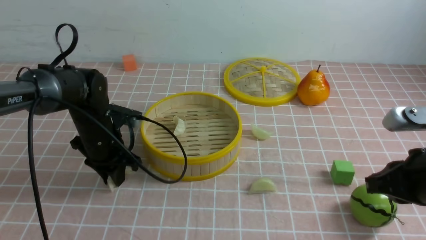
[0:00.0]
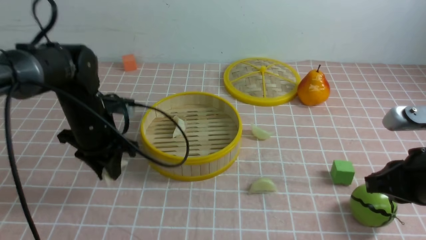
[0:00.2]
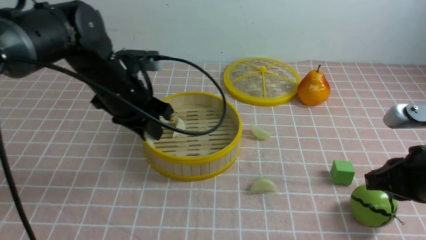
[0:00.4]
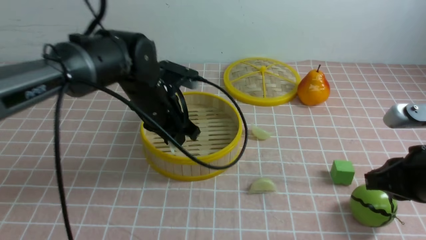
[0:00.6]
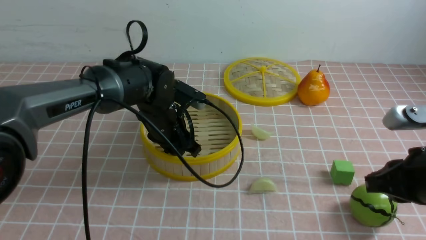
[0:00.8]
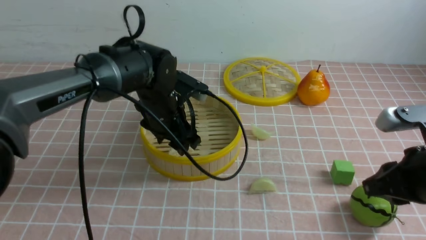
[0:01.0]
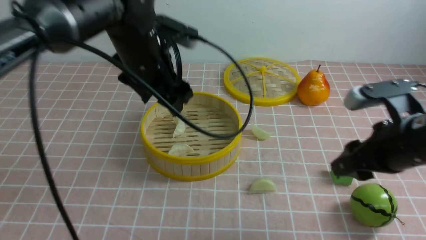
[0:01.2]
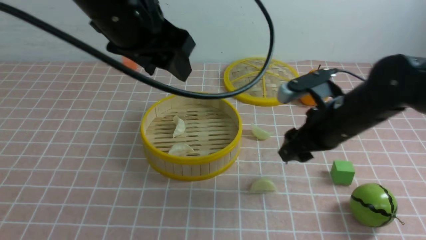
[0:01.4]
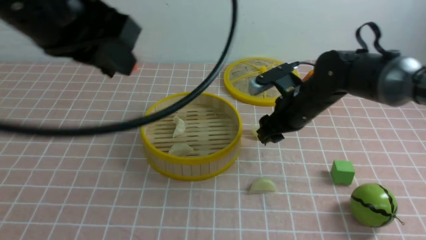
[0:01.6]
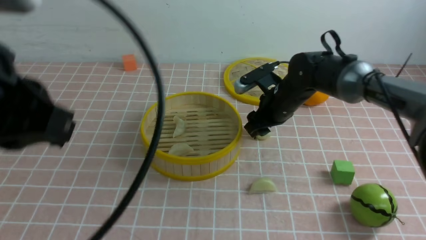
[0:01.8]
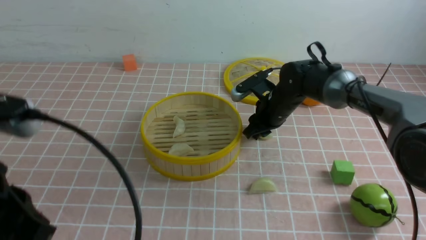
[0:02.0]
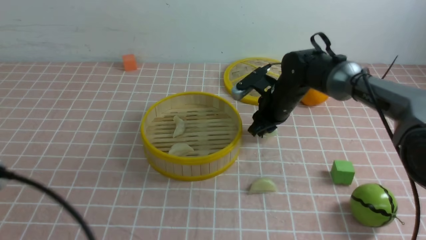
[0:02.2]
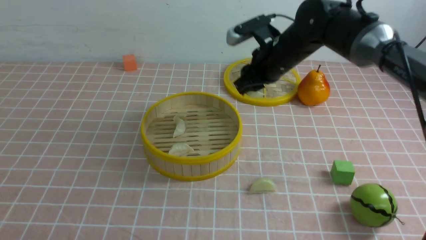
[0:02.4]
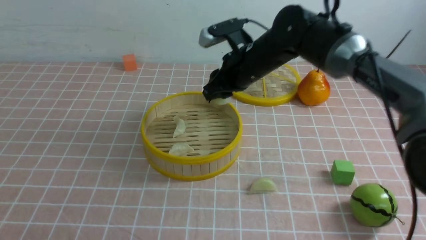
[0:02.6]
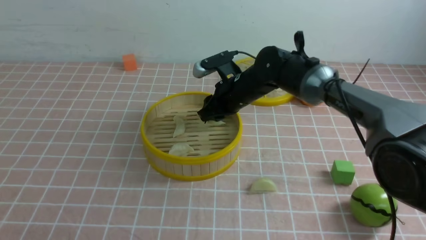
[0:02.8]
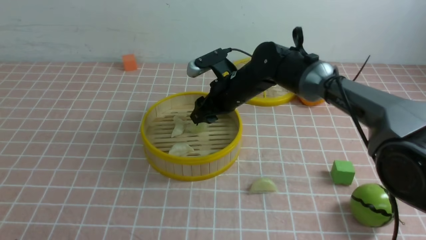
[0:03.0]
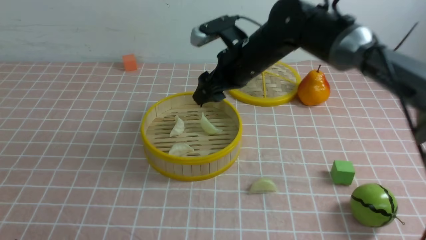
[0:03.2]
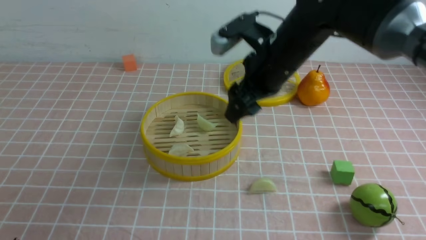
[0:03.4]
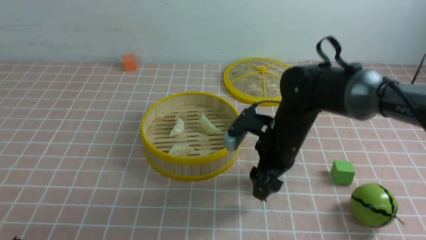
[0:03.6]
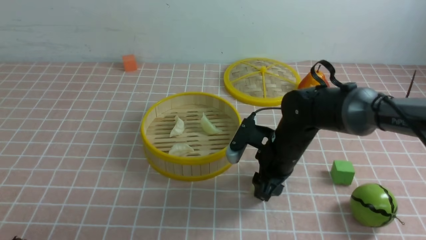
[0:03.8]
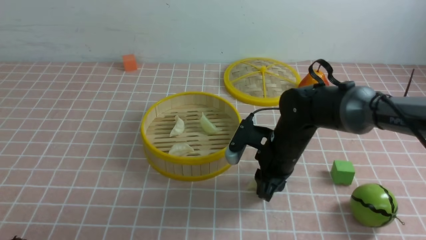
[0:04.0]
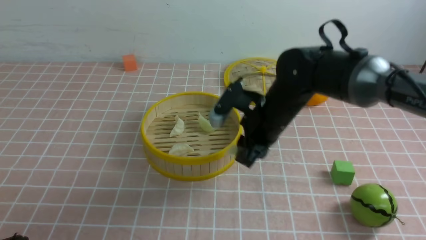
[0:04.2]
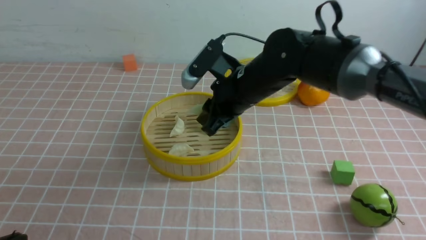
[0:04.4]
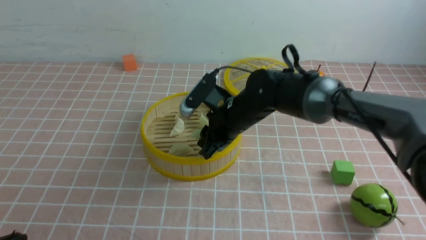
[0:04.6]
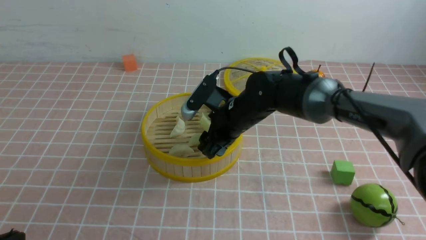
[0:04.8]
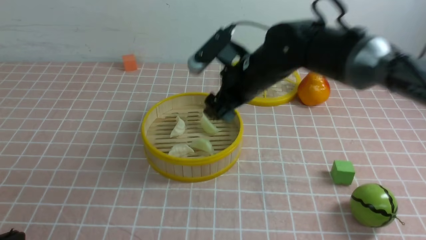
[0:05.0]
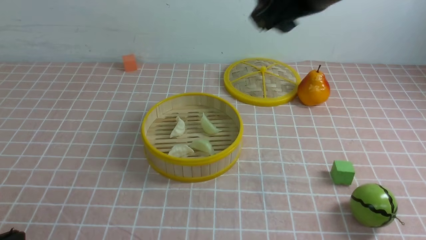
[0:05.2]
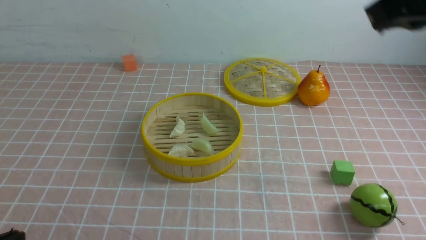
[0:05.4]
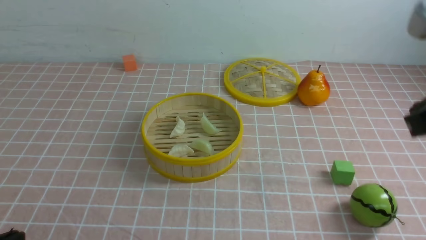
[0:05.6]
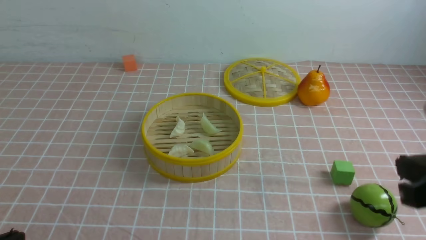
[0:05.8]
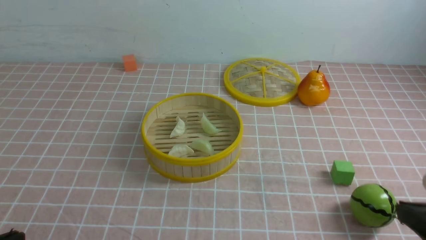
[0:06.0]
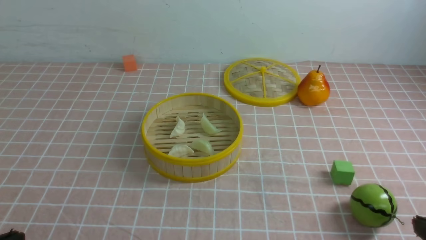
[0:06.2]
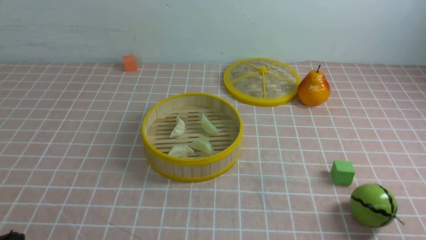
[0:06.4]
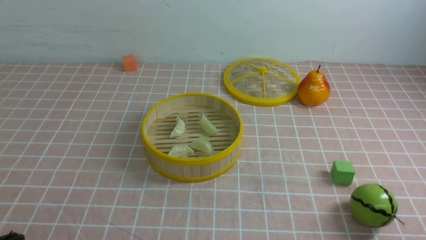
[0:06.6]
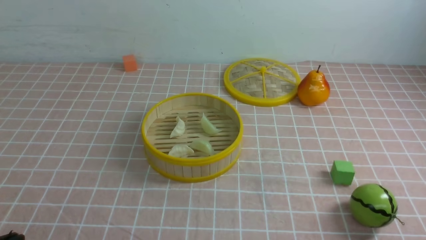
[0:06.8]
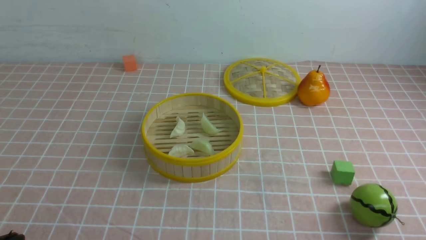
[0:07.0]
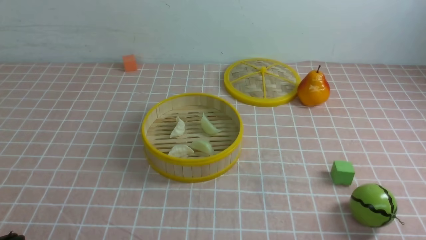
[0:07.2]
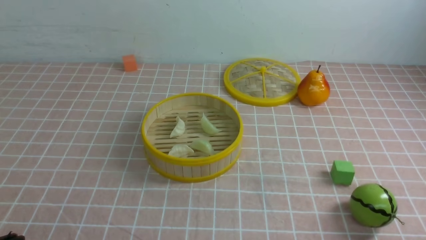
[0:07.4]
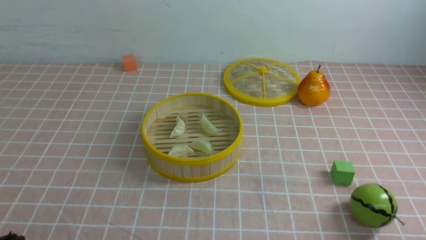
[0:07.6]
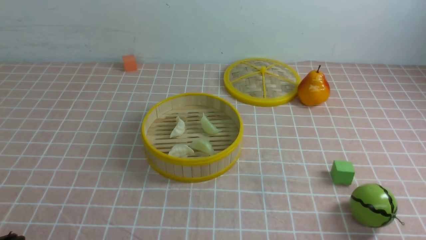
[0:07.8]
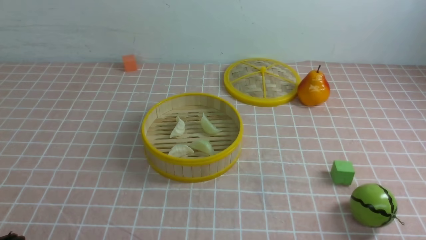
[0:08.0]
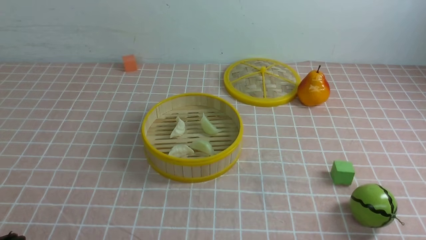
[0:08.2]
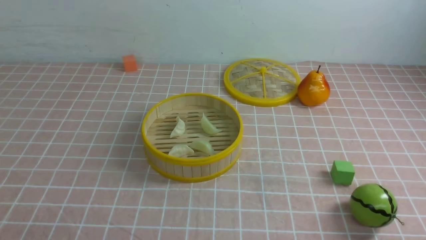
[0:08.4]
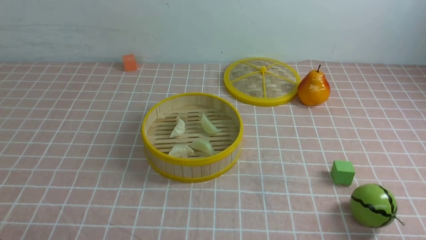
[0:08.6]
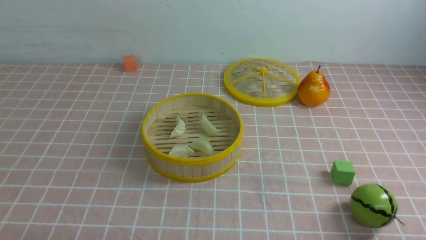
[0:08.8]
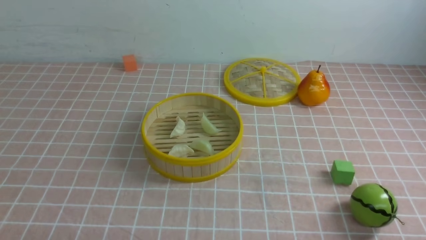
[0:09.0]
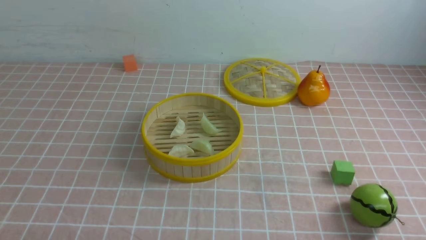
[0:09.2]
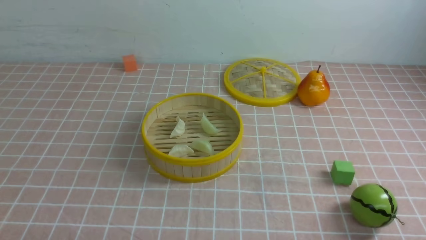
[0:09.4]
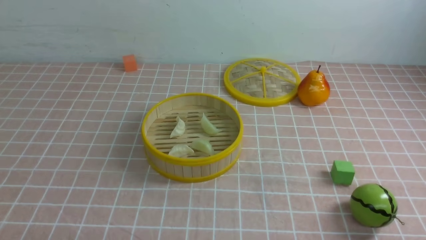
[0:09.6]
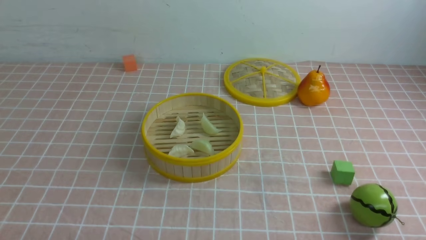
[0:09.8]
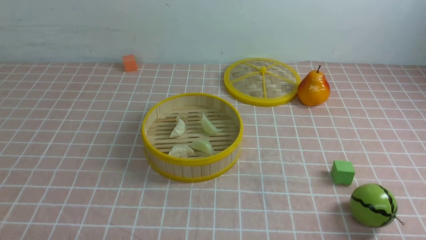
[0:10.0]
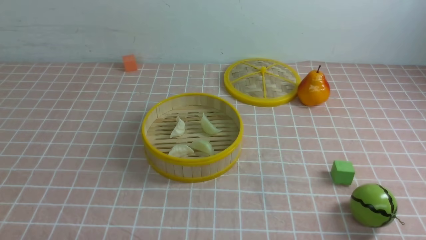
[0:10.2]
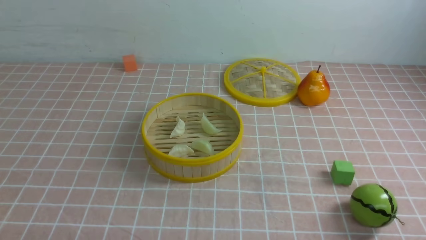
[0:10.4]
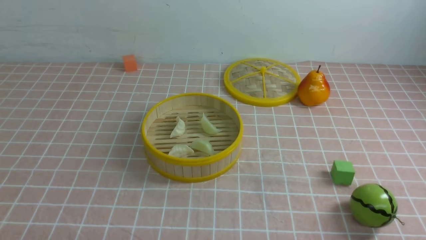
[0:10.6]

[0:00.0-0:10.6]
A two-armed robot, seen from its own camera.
Task of the whole recording: put the dumplings into the steamer on the table with the pink tablecloth.
Step, 0.4 to 1.2 s: use the left arm to put the dumpling into the steamer.
Step, 1.4 to 2.2 s: use the right arm to grab a dumpling.
Step, 2.4 to 3.2 s: use the right arm to put the dumpling into the steamer.
Step, 3.4 to 4.0 s: use the right arm to grab a dumpling.
Step, 4.2 to 5.0 s: use the right arm to put the dumpling into the steamer.
0.0 to 1.6 s: The right gripper travels forward and to the left by approximately 25 cm, and opens up. Meanwhile the left gripper heads upward and backward, covering roughly 30 cm, and opens and closes again.
1.6 to 3.0 s: The left gripper shifts about 25 cm downward, backward and to the left, and closes its fingers. Meanwhile the right gripper is displaced to the left by approximately 10 cm, and closes, then opens again.
3.0 to 4.6 s: The right gripper goes up and down, about 10 cm each way, reversing 2 times.
4.6 to 6.0 s: The right gripper travels backward and to the right by some 35 cm, and closes its fingers.
6.0 to 7.6 s: The right gripper heads downward and backward, covering some 10 cm.
9.0 to 10.6 s: Neither gripper changes place.

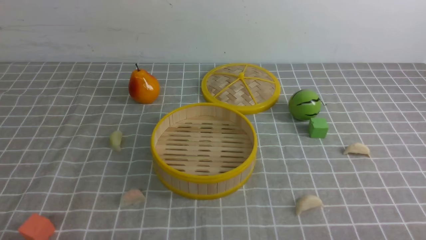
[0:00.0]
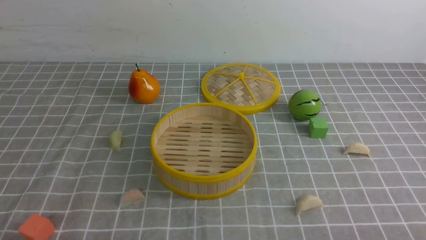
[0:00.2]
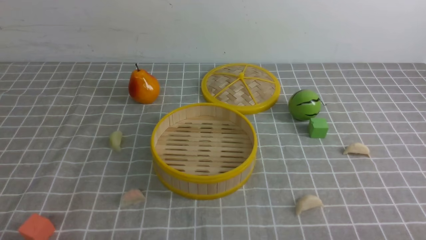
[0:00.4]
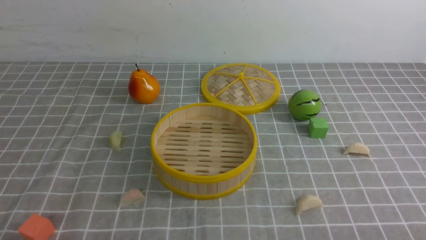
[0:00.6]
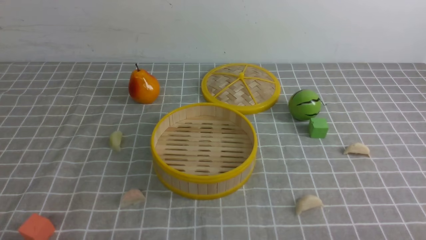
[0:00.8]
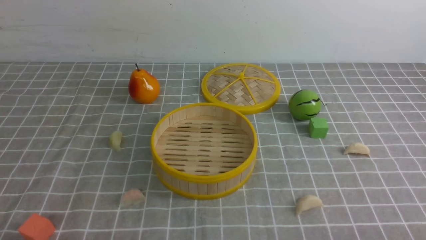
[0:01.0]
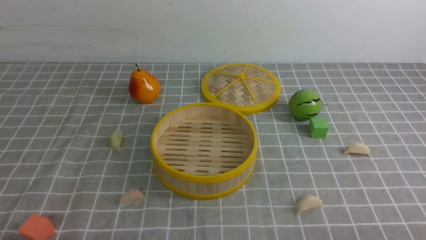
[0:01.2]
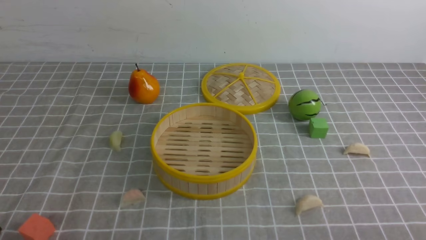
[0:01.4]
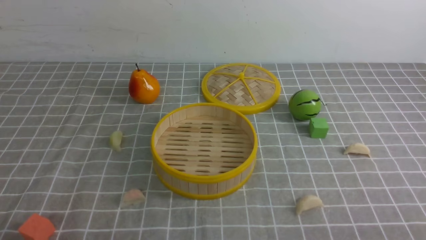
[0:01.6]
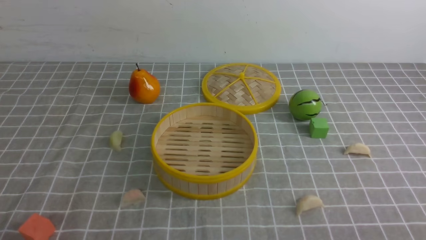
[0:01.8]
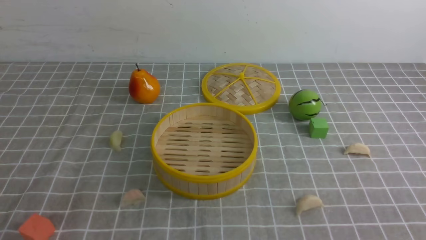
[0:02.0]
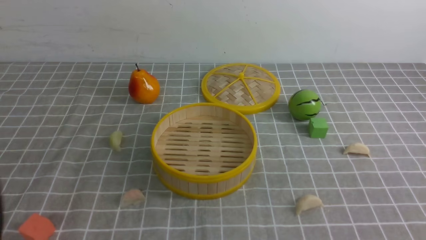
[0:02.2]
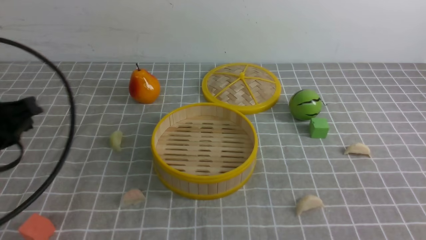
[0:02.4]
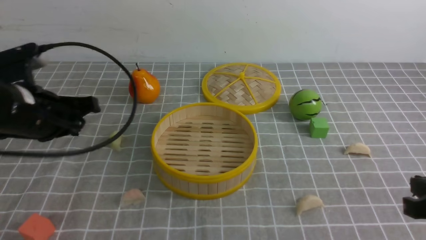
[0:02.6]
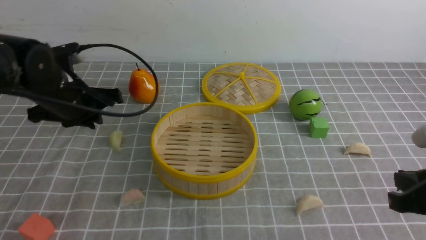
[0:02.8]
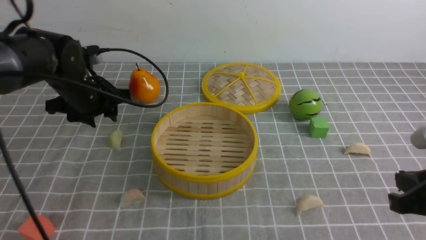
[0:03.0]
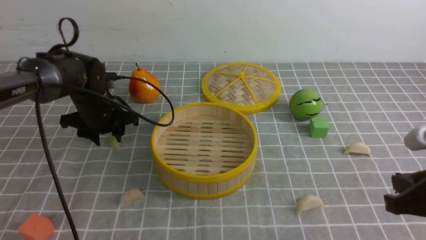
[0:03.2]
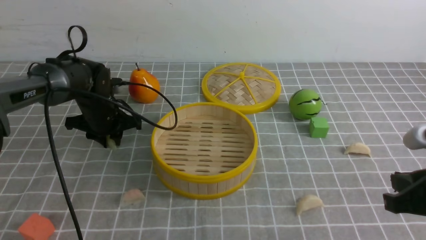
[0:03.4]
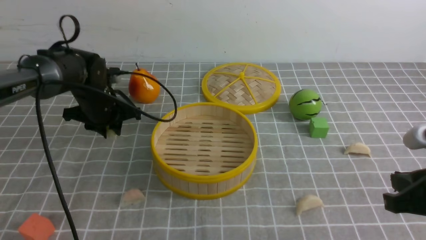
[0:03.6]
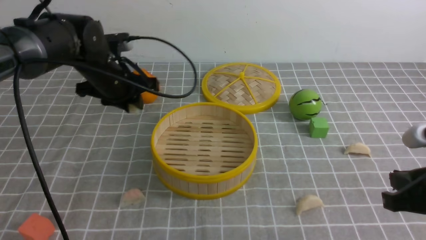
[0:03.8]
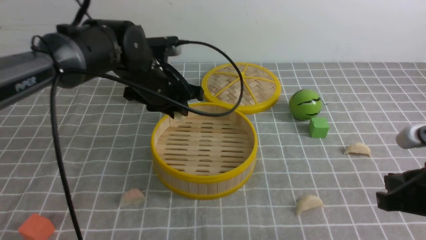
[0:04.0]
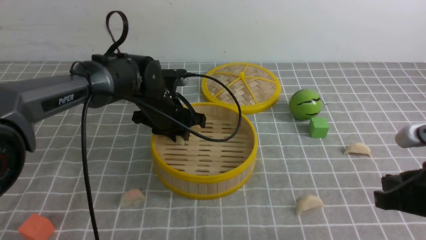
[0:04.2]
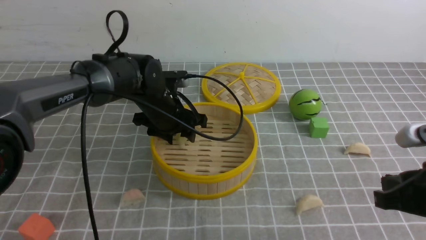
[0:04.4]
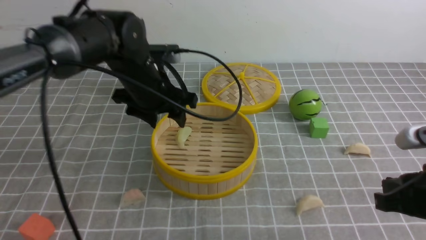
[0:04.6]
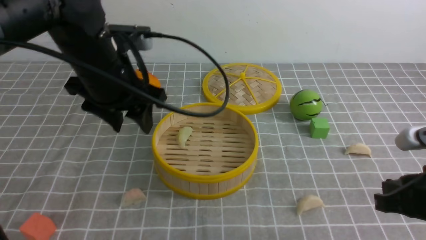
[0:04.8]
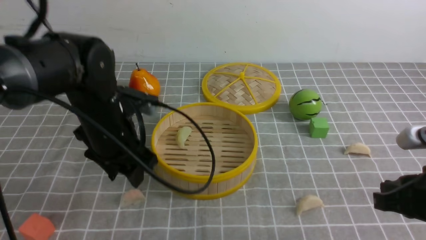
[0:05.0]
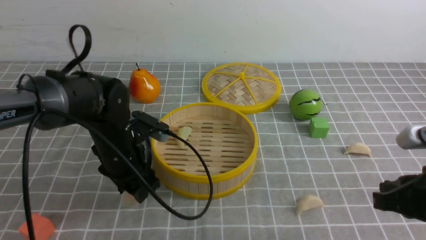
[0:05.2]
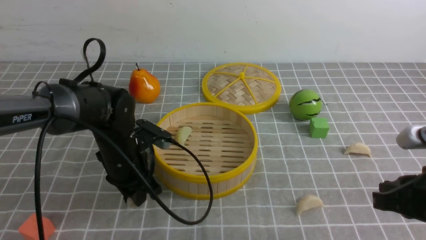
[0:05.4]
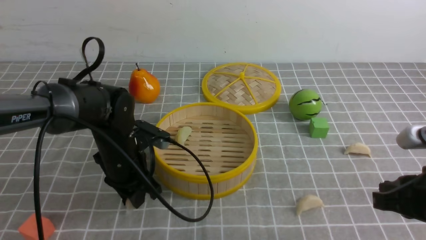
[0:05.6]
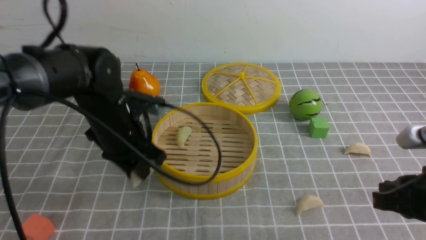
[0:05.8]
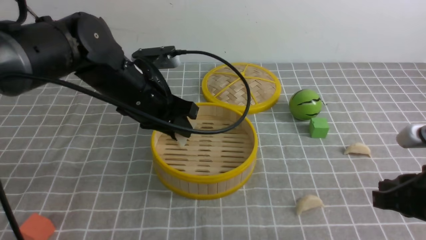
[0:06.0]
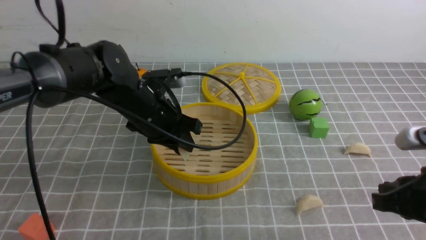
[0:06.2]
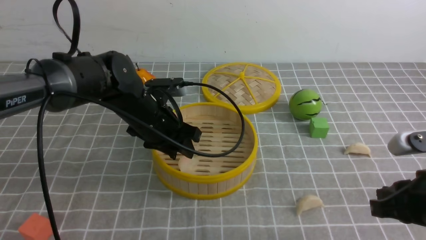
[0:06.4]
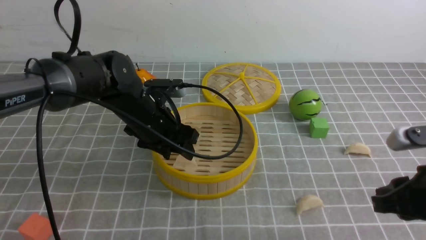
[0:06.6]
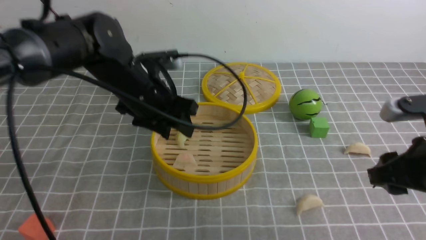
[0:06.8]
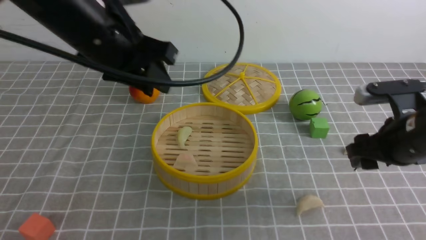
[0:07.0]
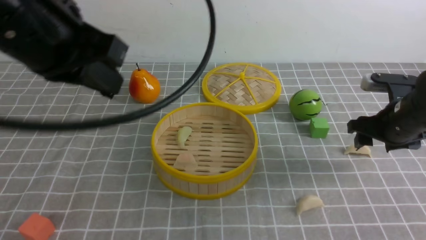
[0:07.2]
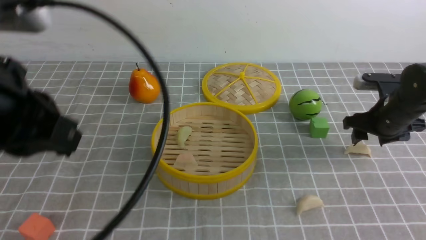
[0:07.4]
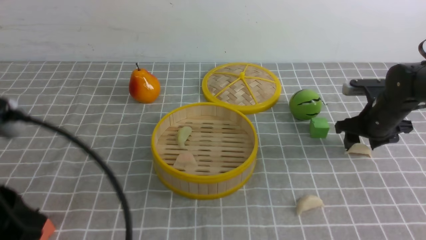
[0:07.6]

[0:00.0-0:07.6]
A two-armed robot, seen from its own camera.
Task of the whole recording: put the dumplings into the steamer on the table with the grey tablecloth.
Step, 0.0 to 3.6 s: use the left arm to grab a dumpling.
Step, 3.8 to 4.6 s: use the left arm to put the dumpling into the steamer.
Step, 4.8 to 5.6 s: use the left arm to grab a dumpling.
Step, 6.0 to 6.6 s: use the left arm to put the dumpling into the steamer.
1.6 to 3.0 s: The right gripper shifts approximately 15 cm forward, and closes. The left gripper is displaced forward by roughly 35 cm, and opens its fingers.
3.0 to 4.6 s: The left gripper goes roughly 10 cm to the right.
4.6 to 6.0 s: The left gripper reaches roughly 10 cm downward, then returns, and closes.
6.0 to 7.6 s: The right gripper travels forward by some 25 cm, and opens its fingers. Meanwhile the left gripper shifts about 25 cm backward and to the left, and closes up.
